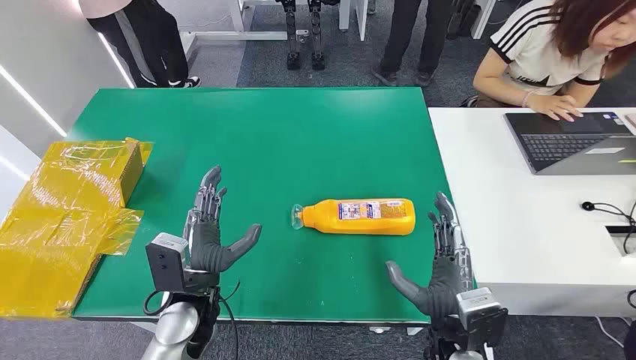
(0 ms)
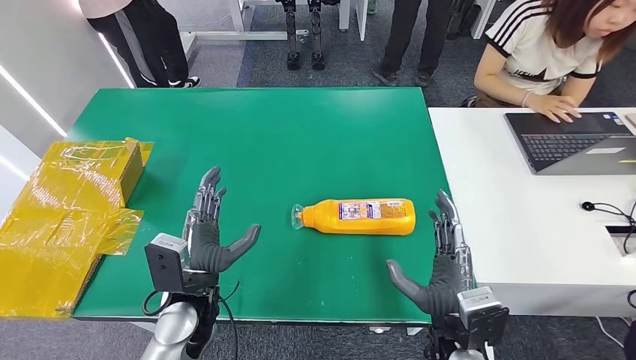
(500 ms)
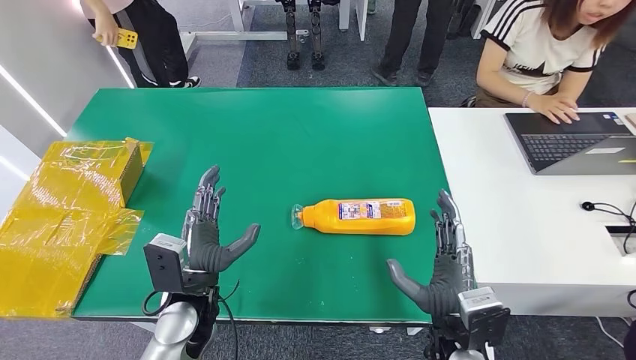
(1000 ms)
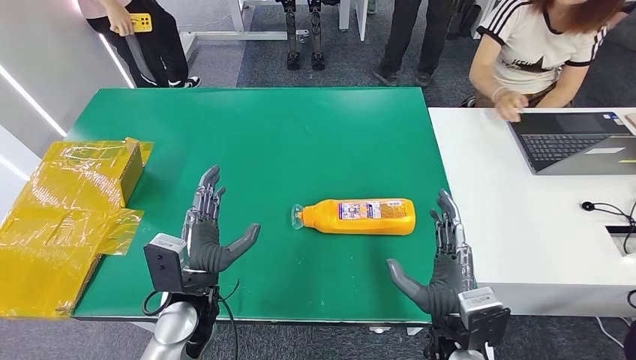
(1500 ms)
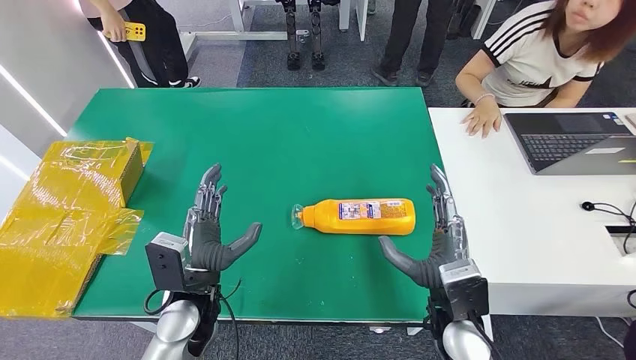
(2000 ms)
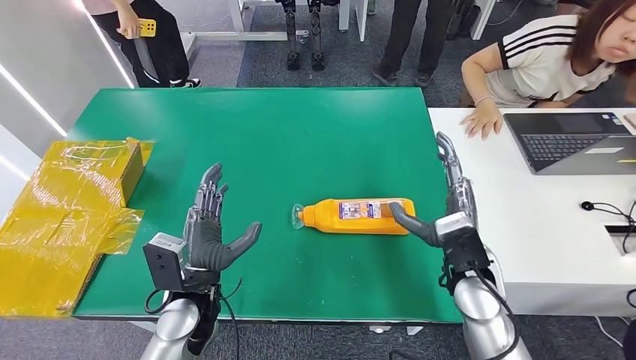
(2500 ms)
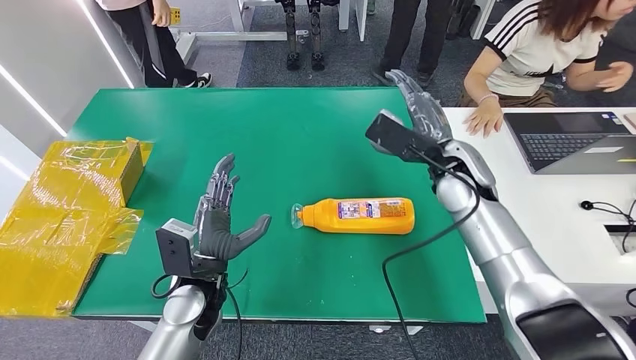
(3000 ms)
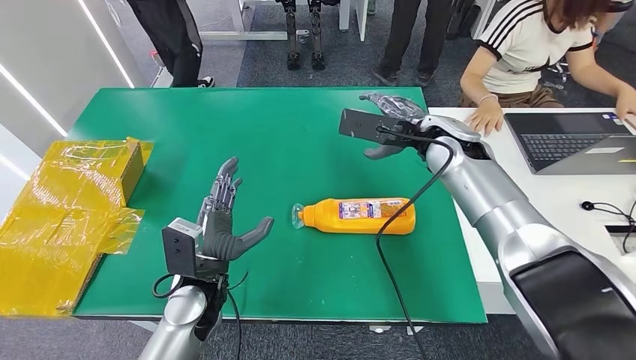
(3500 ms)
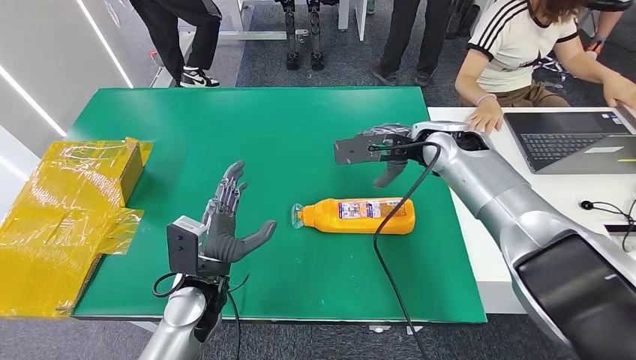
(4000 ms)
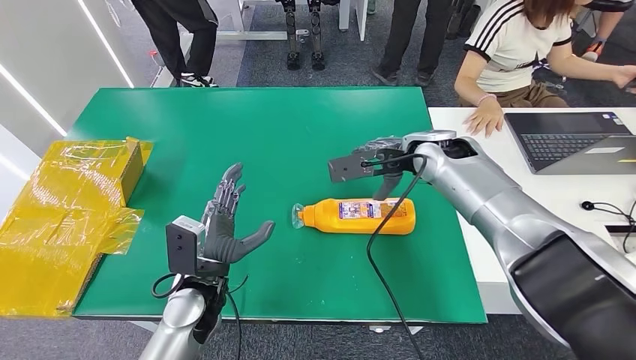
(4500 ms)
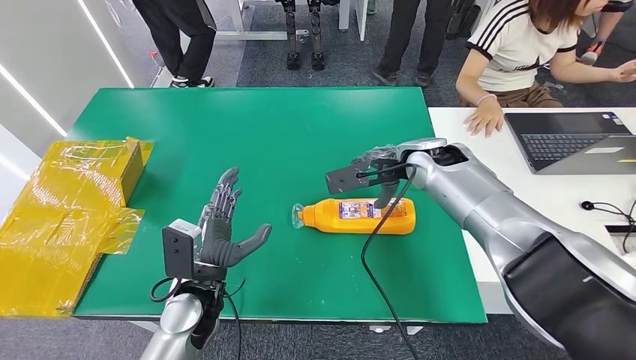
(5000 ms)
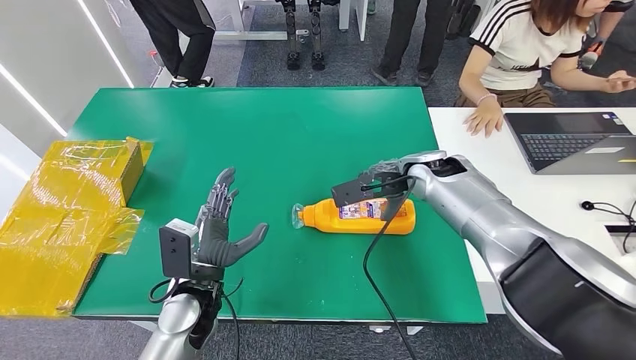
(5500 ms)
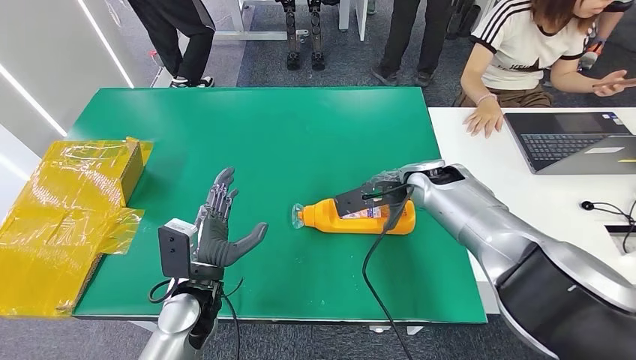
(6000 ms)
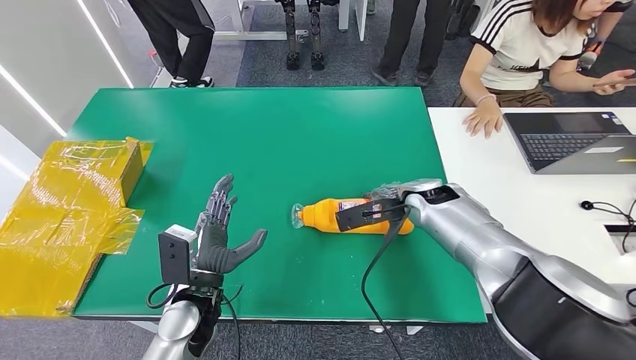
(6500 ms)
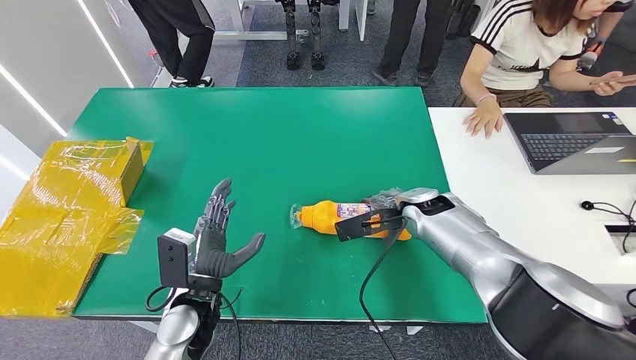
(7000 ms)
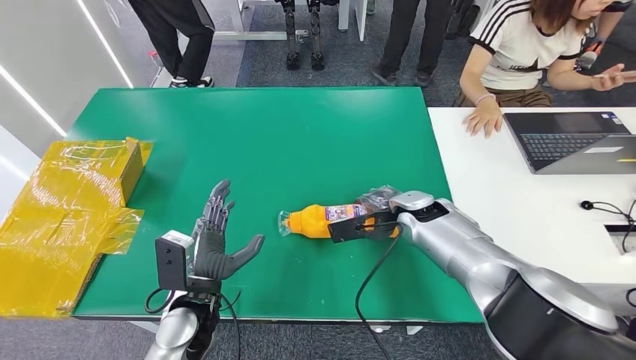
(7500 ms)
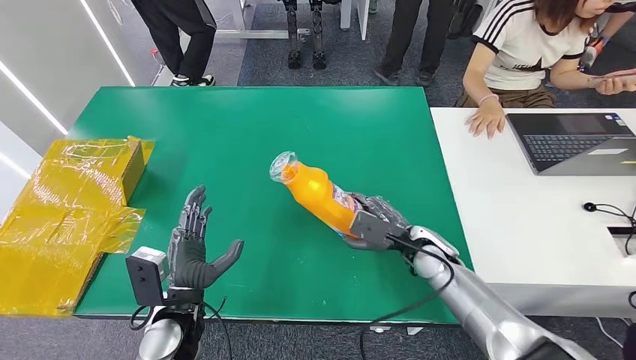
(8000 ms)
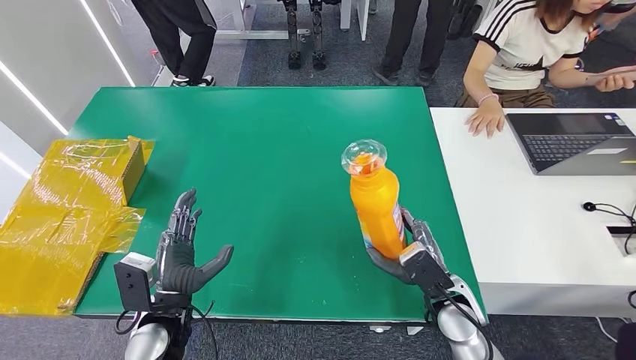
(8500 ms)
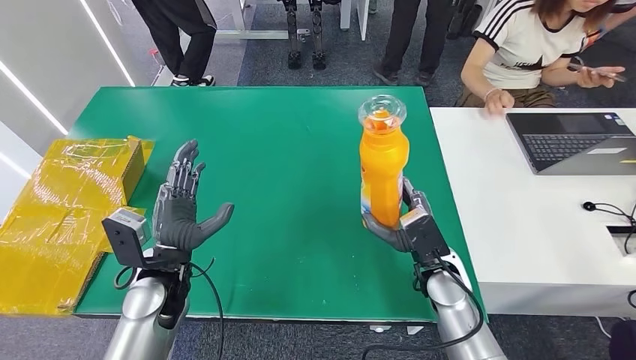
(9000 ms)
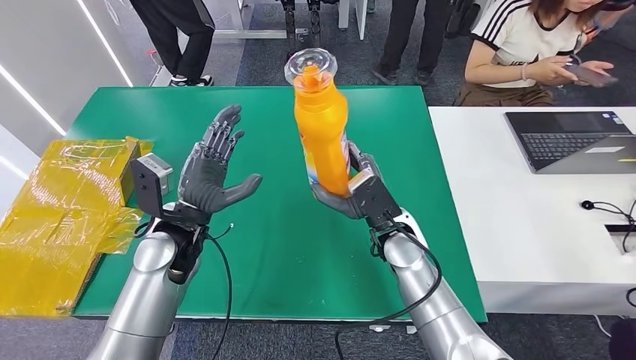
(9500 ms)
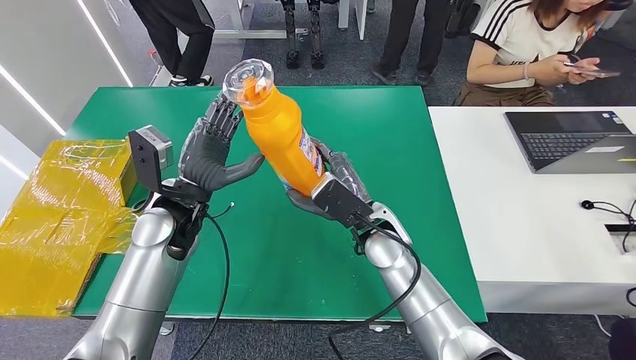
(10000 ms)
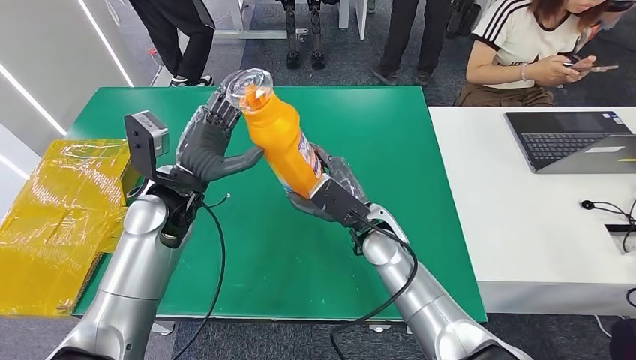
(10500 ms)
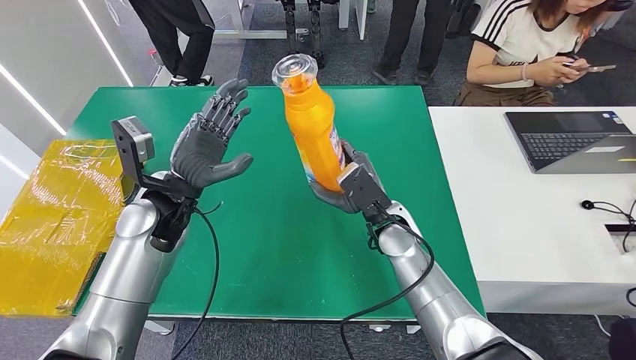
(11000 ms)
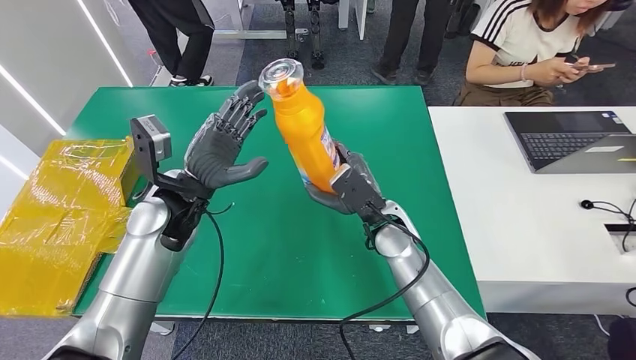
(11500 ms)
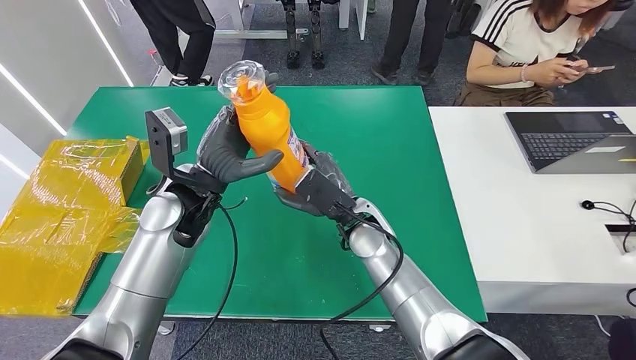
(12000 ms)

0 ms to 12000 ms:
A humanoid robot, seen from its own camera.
Step, 0 ms to 8500 ms: Pick up the bottle from the table.
4000 ms to 6000 ms: The right hand moves downward, roughly 10 cm.
10000 ms to 12000 ms: The hands stay close to where they were, moving slightly.

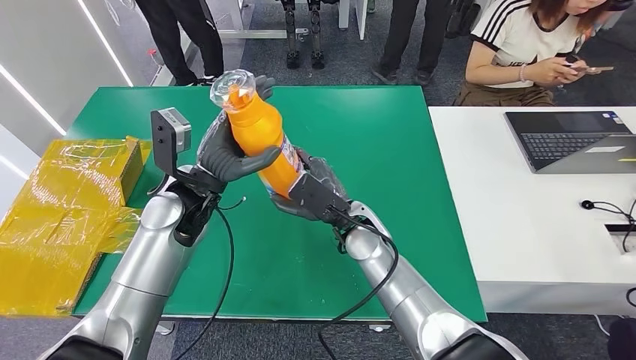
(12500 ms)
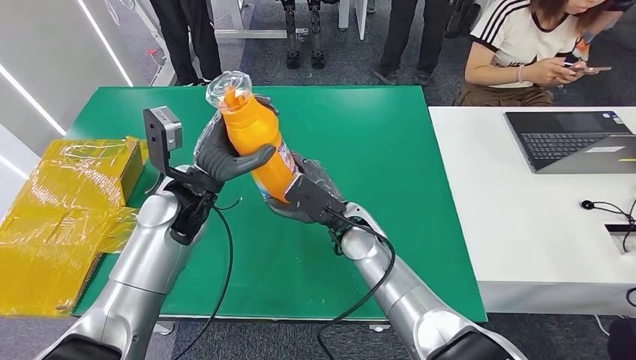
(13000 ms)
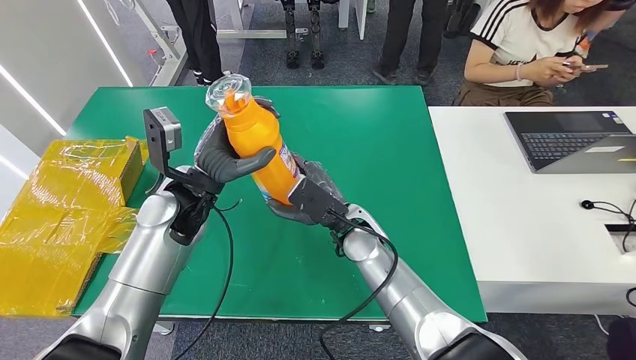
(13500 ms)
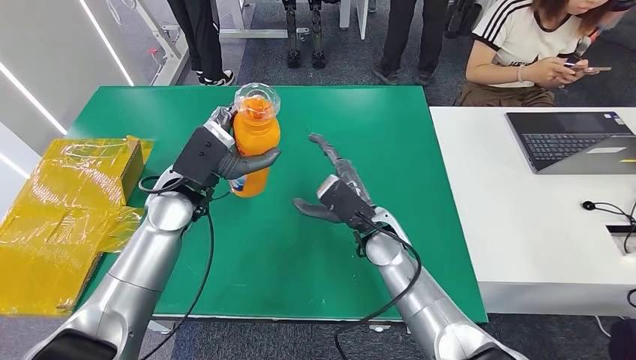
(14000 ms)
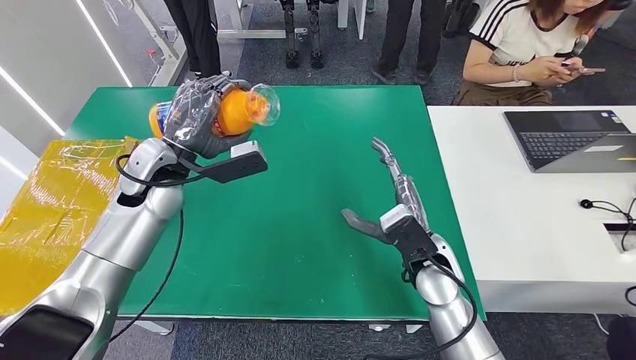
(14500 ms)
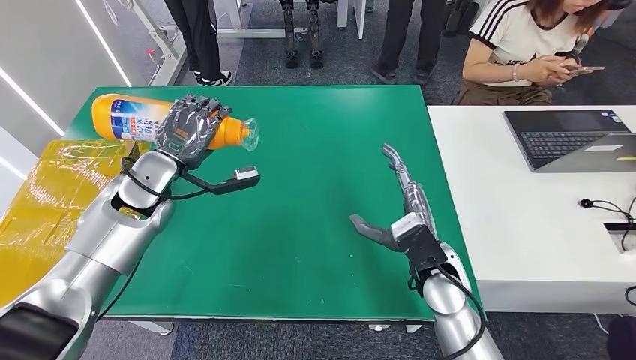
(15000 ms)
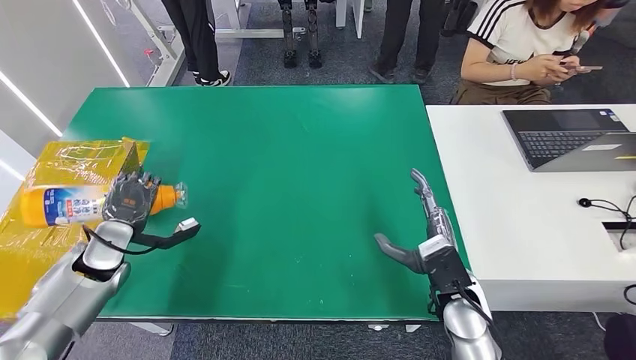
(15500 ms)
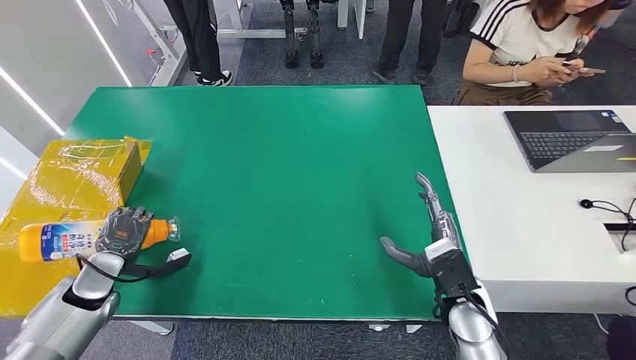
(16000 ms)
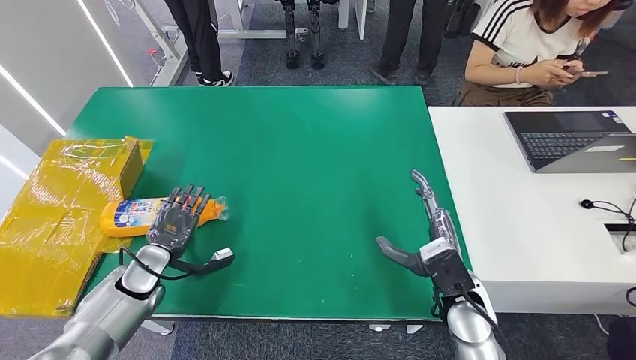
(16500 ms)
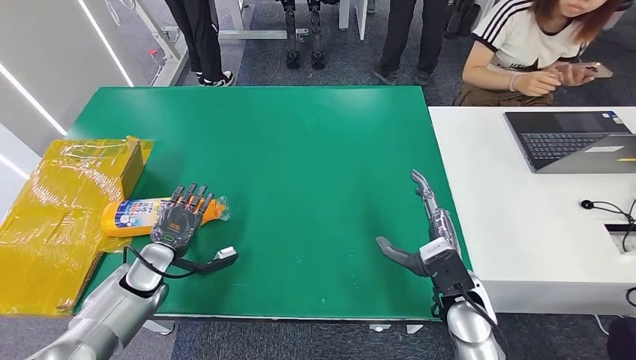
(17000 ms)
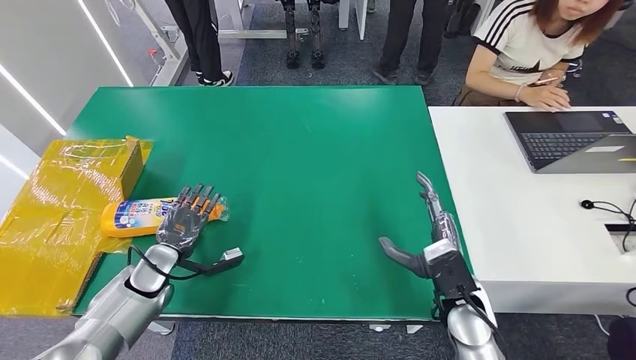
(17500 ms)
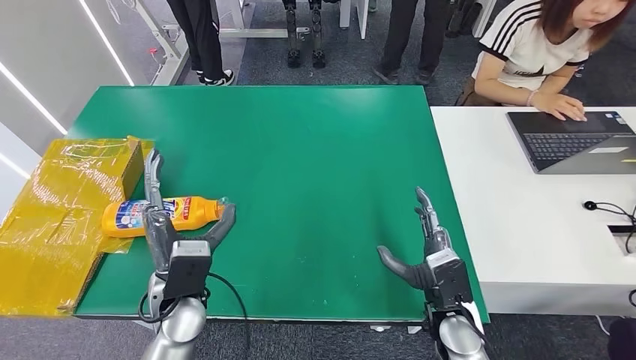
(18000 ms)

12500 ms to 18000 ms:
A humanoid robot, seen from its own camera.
Step, 12500 ms to 18000 ms: Turn the bottle to the front side.
14500 ms to 16000 ms: The left hand moves downward, to the left and backward, about 30 cm. The right hand heads to the right, covering approximately 5 cm.

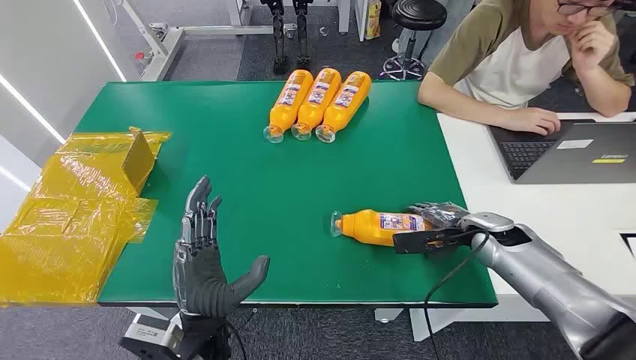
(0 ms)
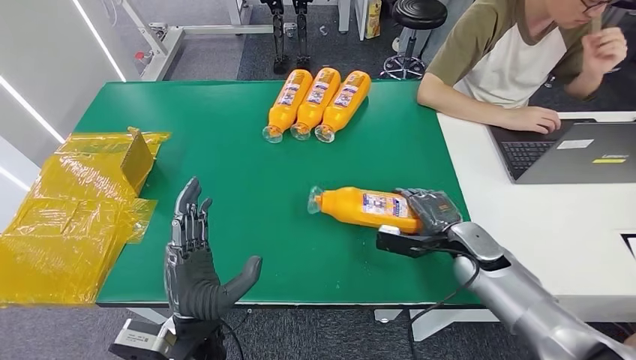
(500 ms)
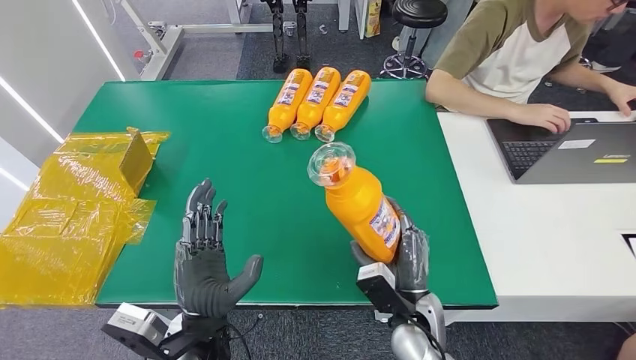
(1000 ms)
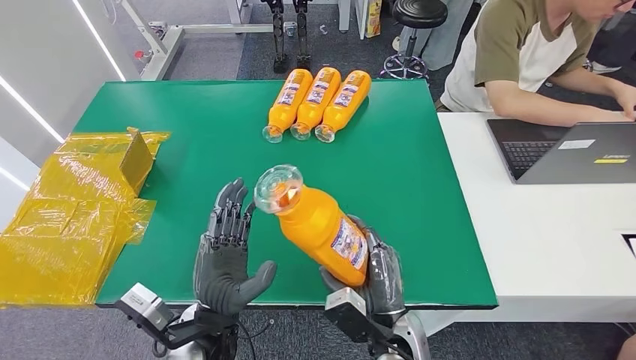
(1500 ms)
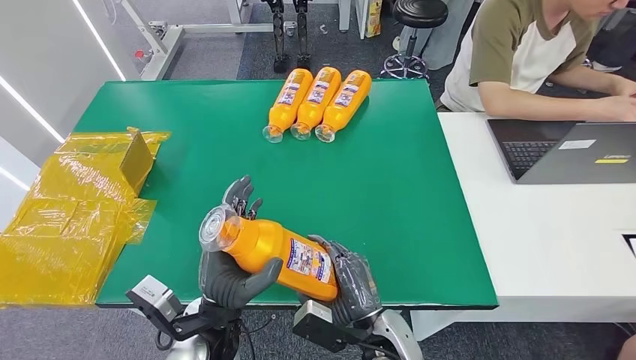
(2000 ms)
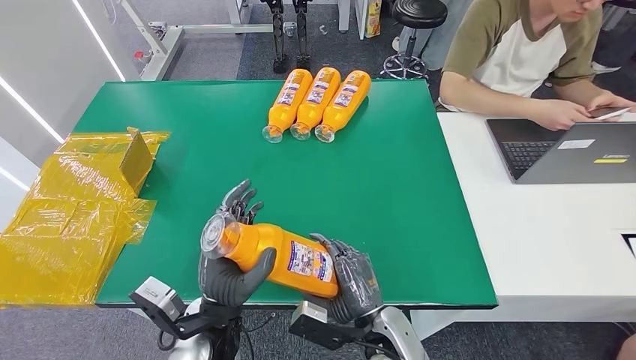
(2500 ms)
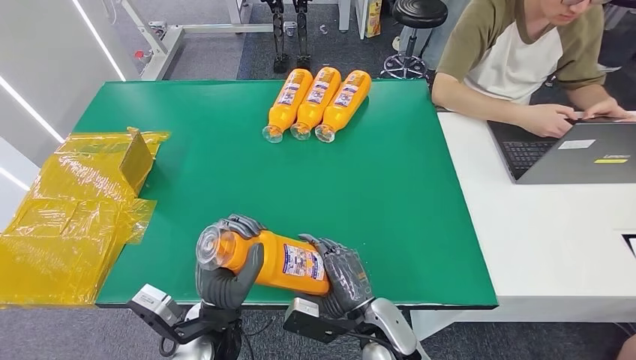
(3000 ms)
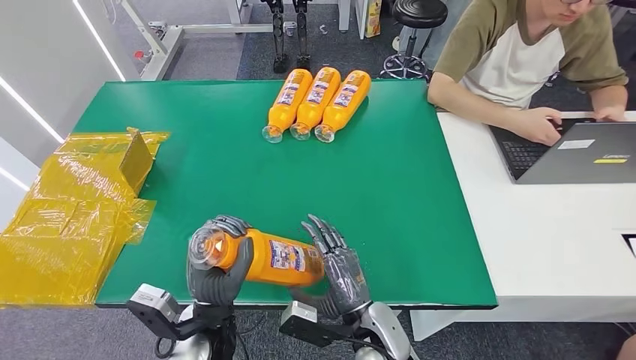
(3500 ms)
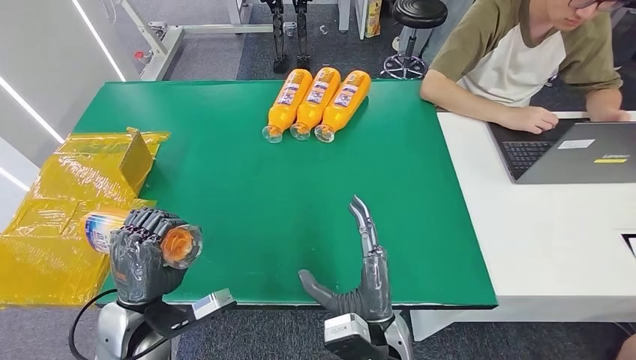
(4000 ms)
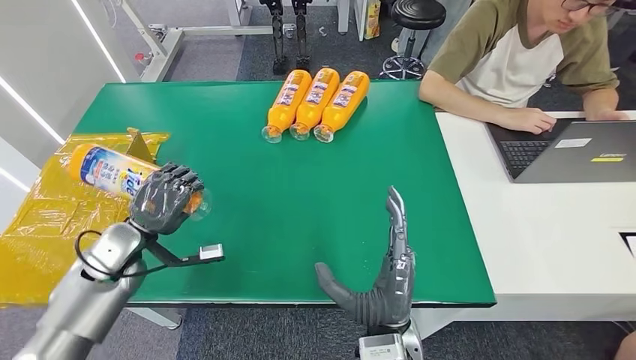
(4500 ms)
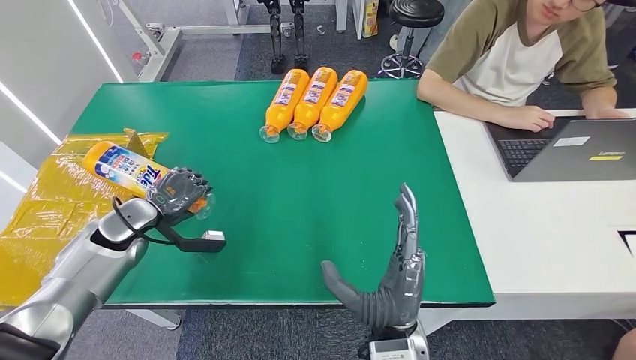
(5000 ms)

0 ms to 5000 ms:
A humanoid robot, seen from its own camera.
Step, 0 ms to 1500 ms: Pick up the bottle from the table.
